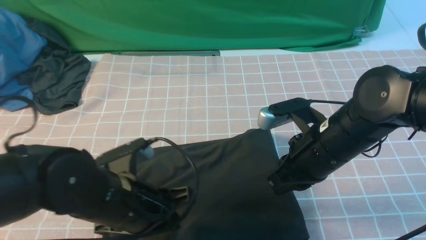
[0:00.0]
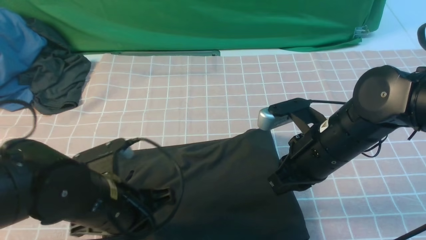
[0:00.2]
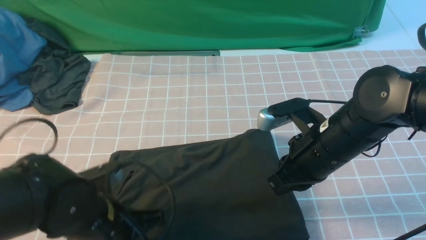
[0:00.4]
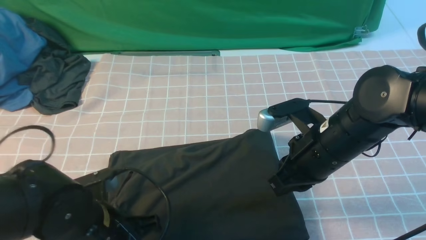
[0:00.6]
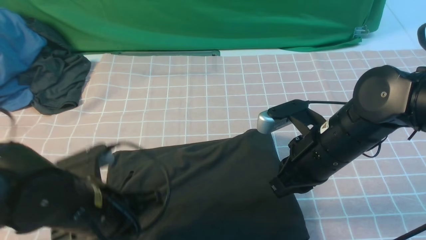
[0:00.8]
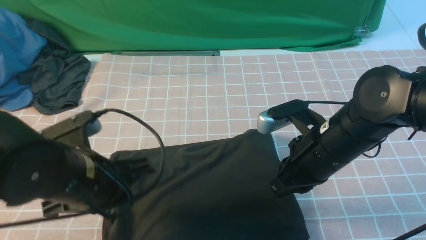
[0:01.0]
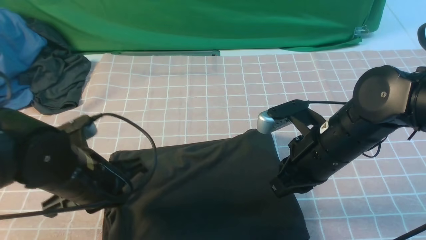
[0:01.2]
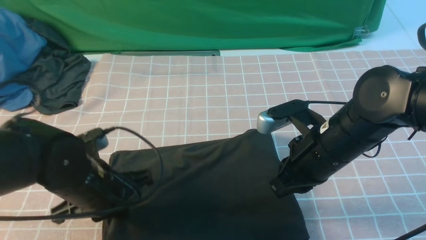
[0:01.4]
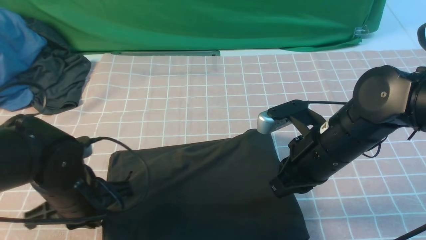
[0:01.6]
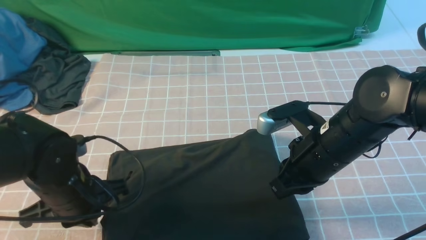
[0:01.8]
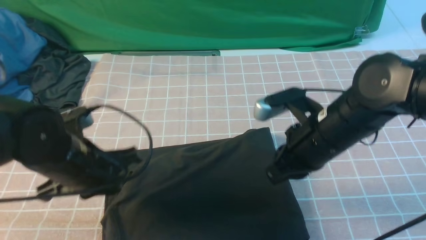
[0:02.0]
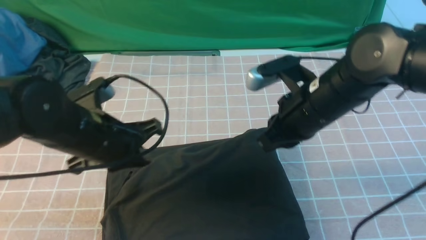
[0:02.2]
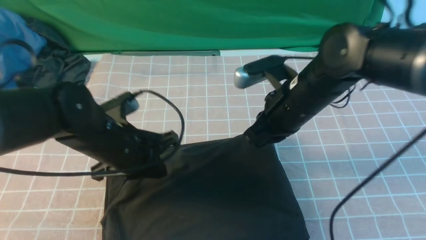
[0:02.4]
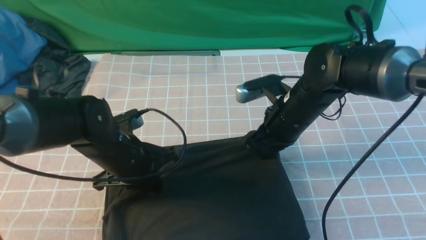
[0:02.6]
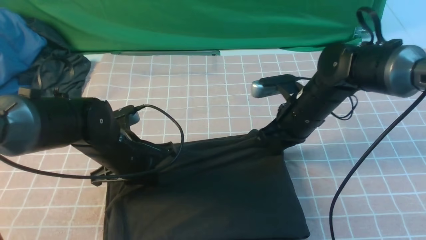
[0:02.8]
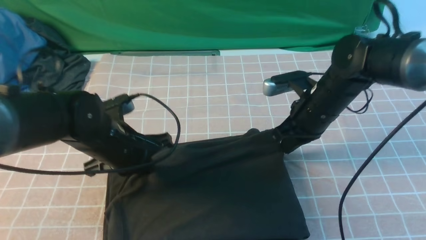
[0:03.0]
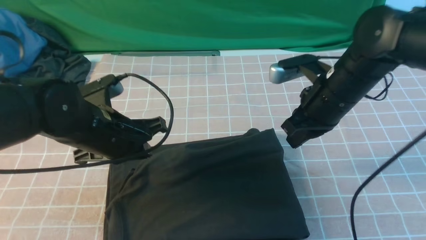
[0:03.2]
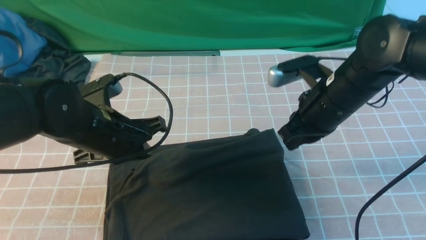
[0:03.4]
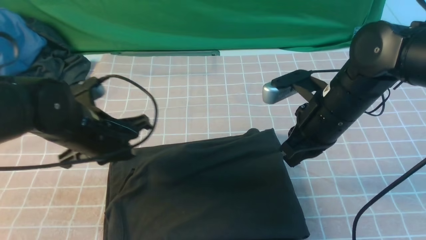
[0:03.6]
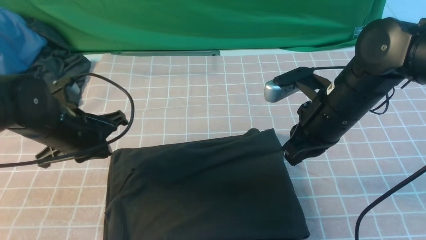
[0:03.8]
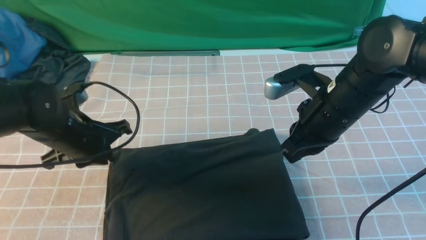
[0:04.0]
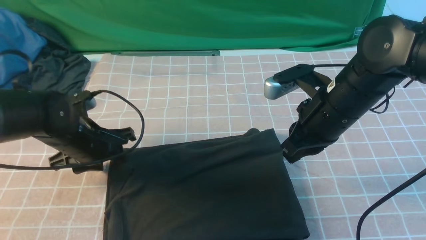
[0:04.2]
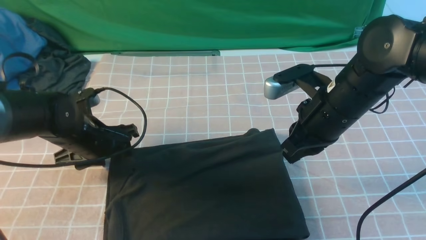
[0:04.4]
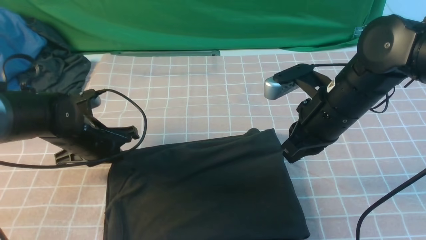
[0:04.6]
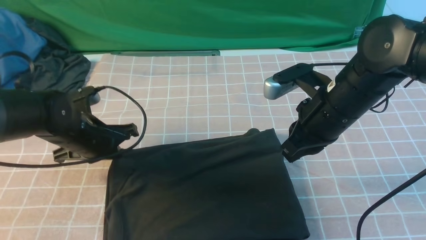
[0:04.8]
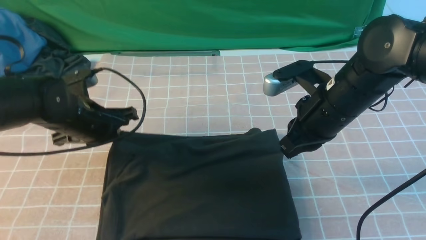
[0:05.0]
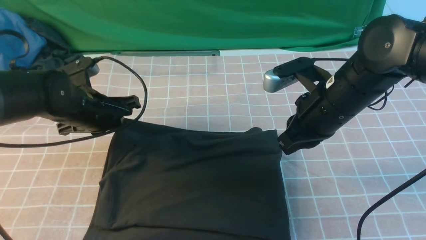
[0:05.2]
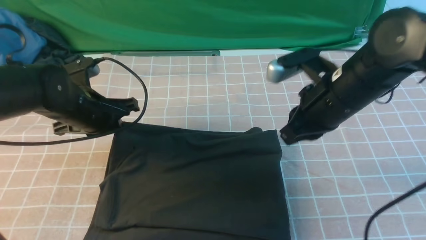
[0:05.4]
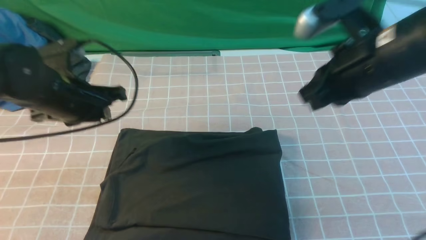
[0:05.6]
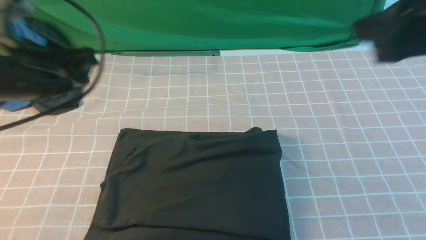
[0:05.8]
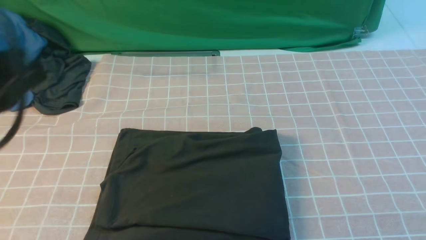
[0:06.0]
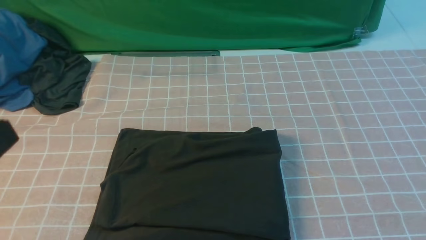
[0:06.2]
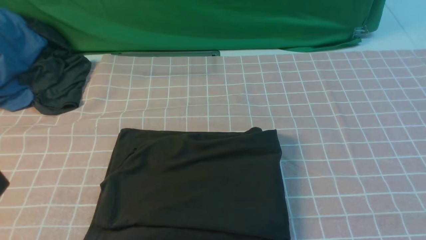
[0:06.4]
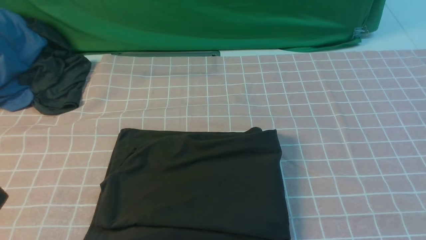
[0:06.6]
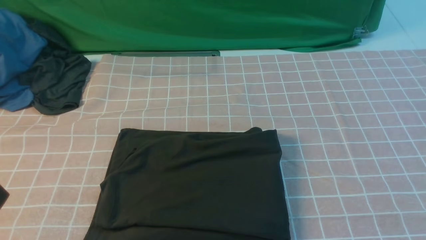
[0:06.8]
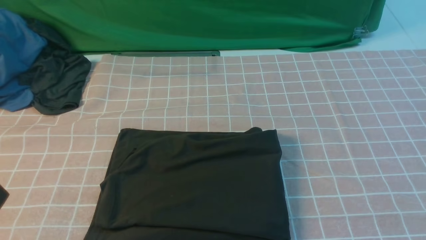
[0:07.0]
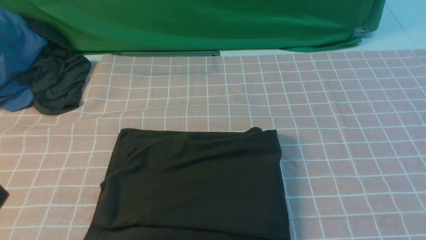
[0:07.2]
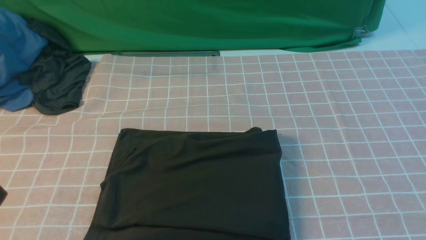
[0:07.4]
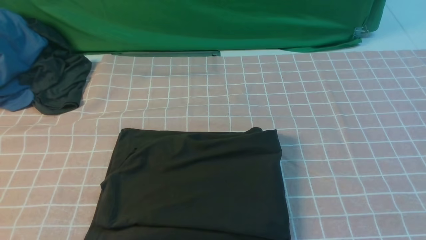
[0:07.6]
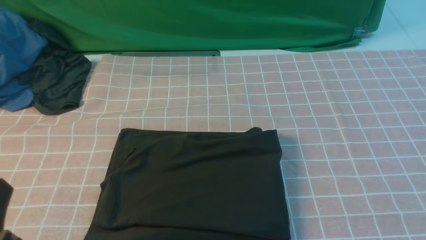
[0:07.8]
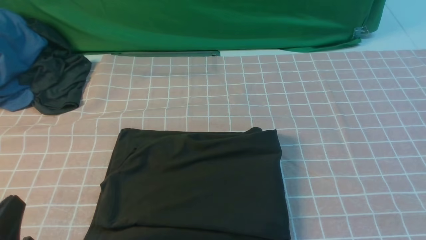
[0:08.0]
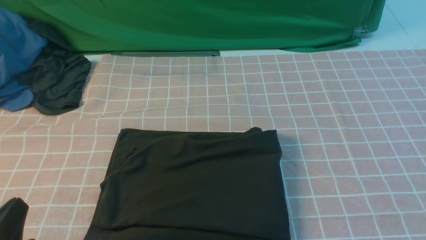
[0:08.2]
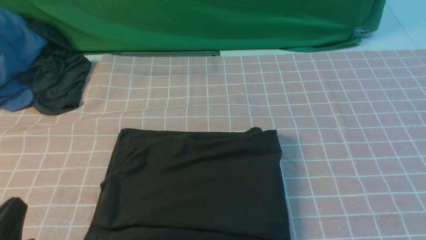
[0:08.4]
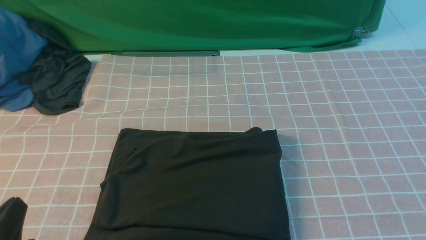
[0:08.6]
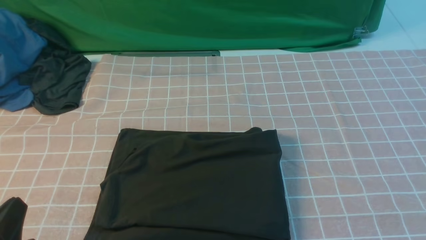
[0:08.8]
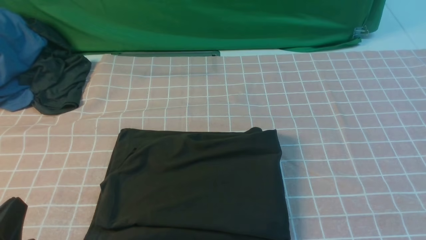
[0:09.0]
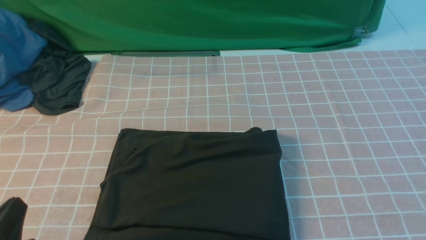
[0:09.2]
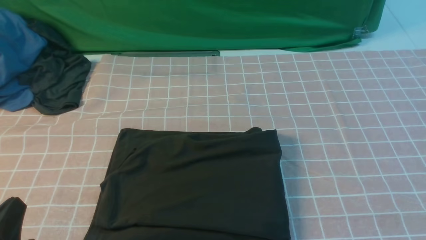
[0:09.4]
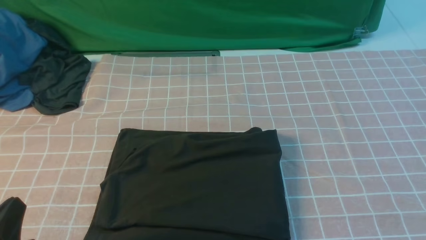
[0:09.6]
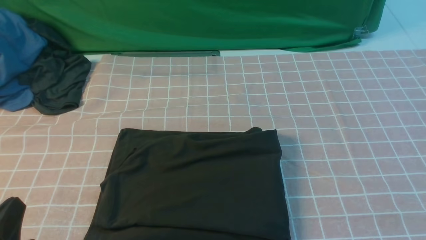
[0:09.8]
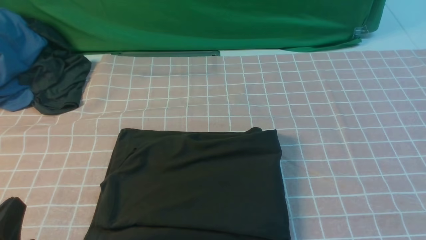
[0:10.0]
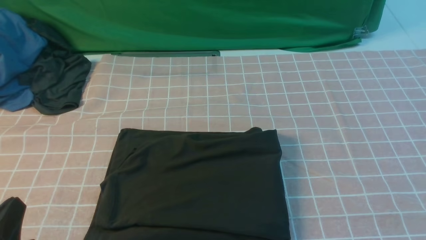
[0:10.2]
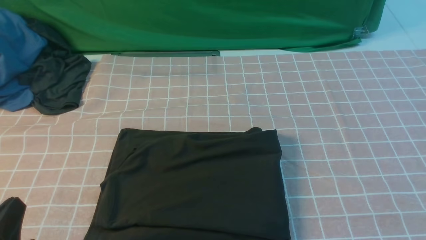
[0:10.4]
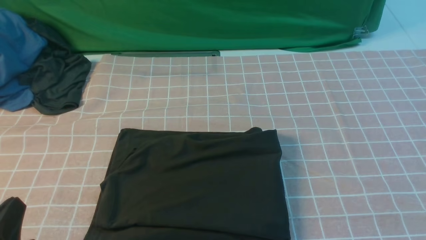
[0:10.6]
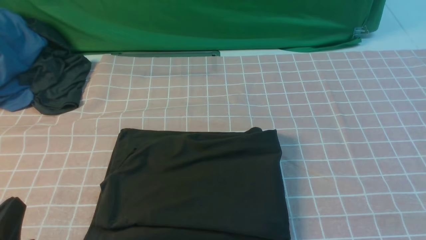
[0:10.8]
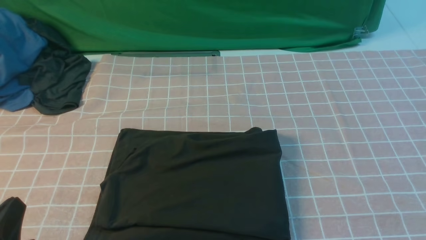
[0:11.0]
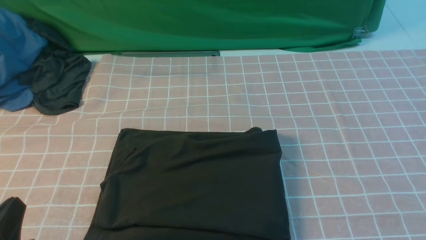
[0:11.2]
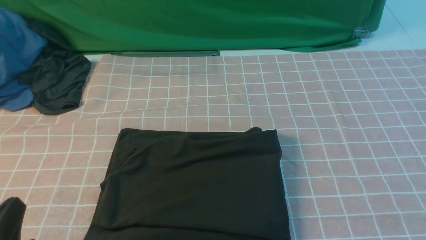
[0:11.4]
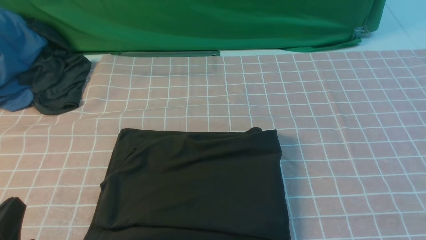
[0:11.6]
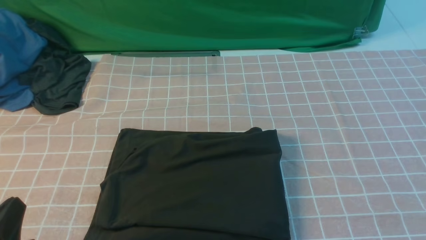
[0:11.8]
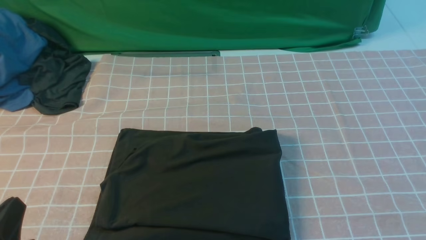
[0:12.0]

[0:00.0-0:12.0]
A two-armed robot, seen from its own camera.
0:00.0 to 0:01.6: The left gripper goes approximately 5 cm to the left.
0:01.6 to 0:03.0: Both grippers move forward, about 10 cm.
0:03.0 to 0:04.4: The right gripper goes approximately 5 cm backward; the left gripper moves to the left, roughly 5 cm, and opens.
0:04.4 to 0:06.0: The left gripper goes approximately 30 cm upward and backward, and closes up. The right gripper travels upward, backward and to the right by approximately 30 cm.
0:06.0 to 0:07.6: The right gripper shifts roughly 15 cm backward, downward and to the right. Meanwhile the left gripper heads backward and downward, covering roughly 15 cm.
0:07.6 to 0:09.0: The left gripper is displaced downward by approximately 10 cm.
0:10.4 to 0:12.0: The two grippers keep their place.
